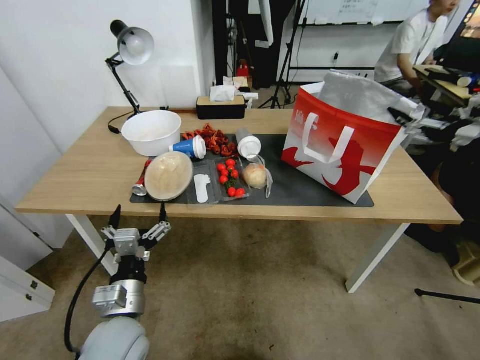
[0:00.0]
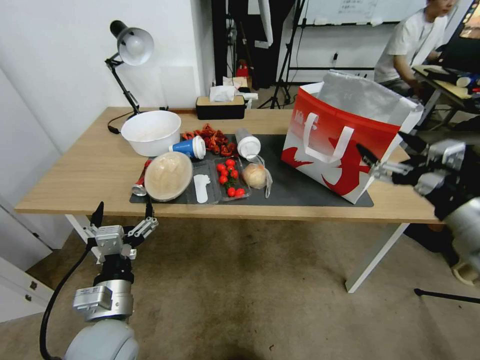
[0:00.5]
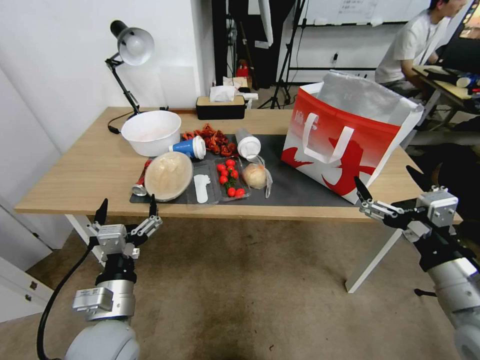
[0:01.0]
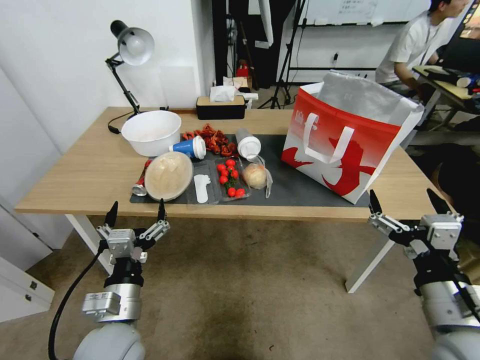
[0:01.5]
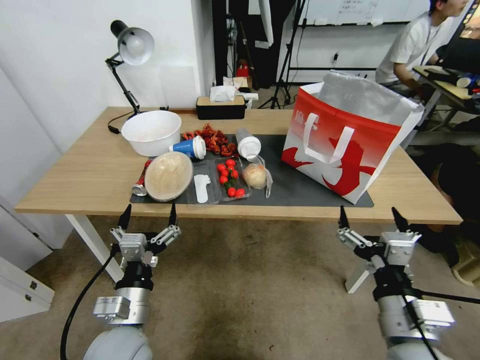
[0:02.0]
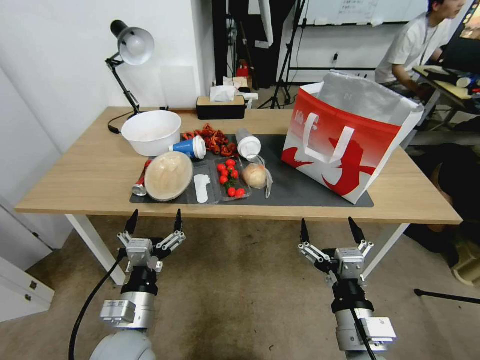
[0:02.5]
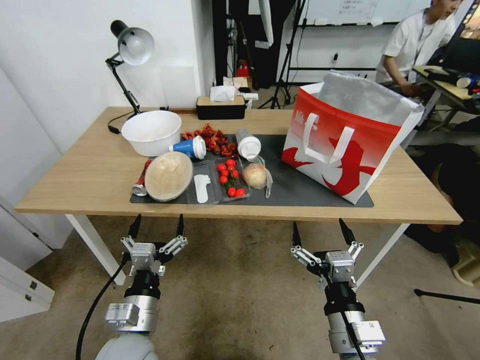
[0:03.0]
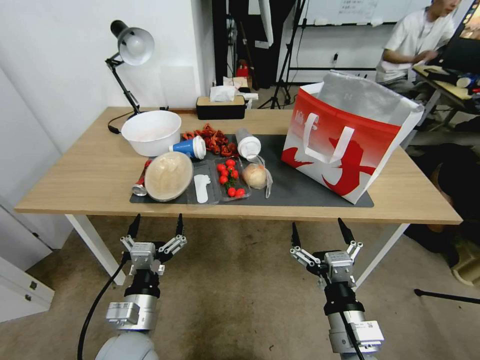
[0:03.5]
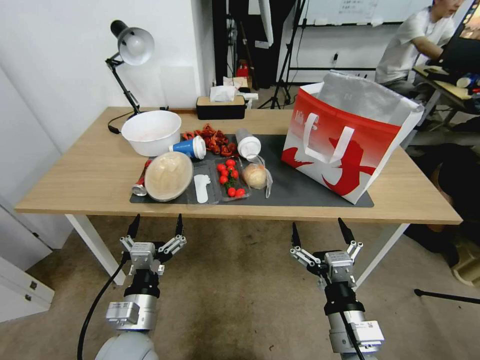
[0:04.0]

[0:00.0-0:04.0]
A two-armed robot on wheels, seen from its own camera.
Task of the whole recording: Pick up the food delivery bag from the floor and place it on the table.
0:00.0 to 0:02.0: The right gripper moves to the left, downward and backward, about 35 cm.
0:02.0 to 0:04.0: The right gripper travels to the left and downward by about 10 cm.
